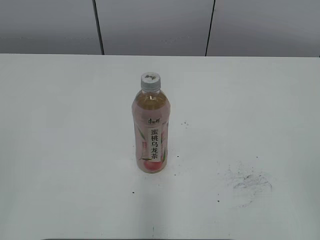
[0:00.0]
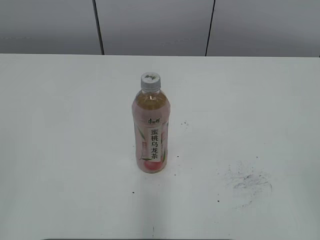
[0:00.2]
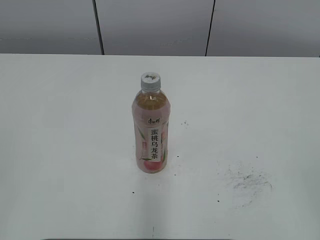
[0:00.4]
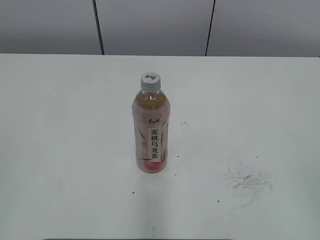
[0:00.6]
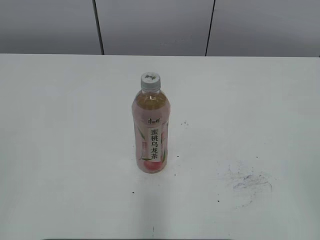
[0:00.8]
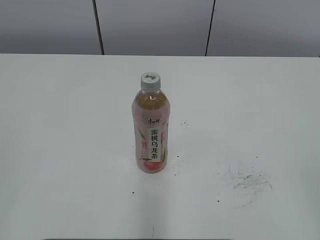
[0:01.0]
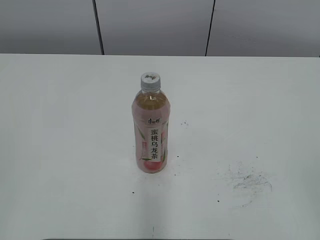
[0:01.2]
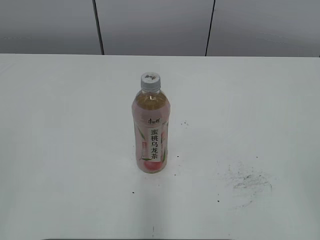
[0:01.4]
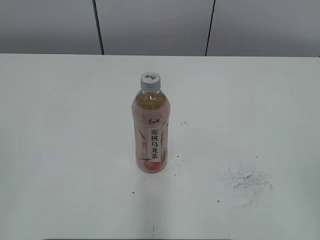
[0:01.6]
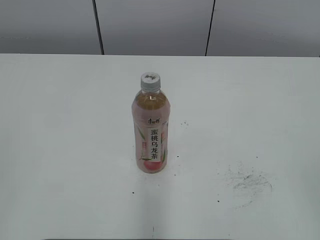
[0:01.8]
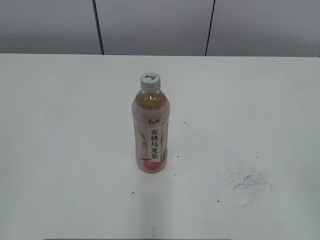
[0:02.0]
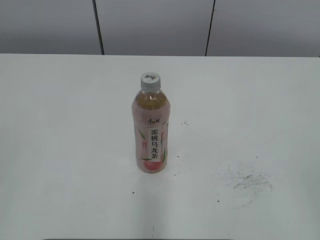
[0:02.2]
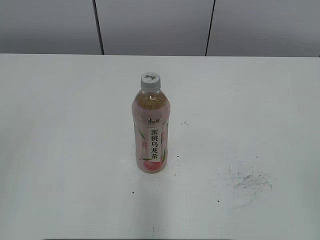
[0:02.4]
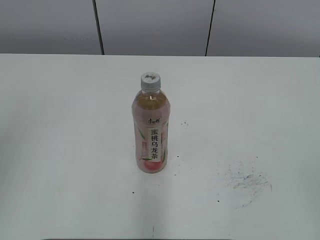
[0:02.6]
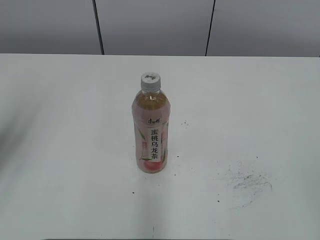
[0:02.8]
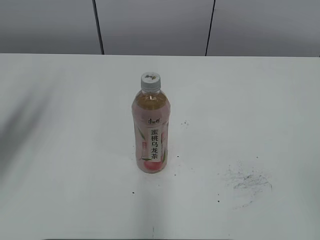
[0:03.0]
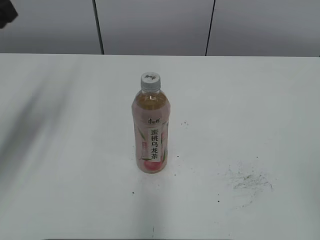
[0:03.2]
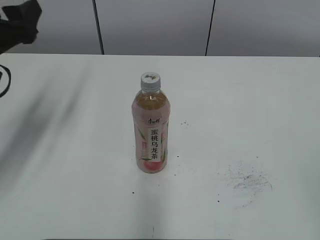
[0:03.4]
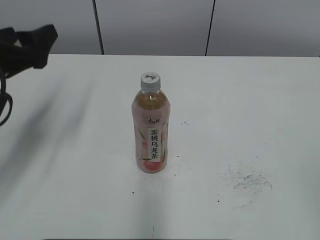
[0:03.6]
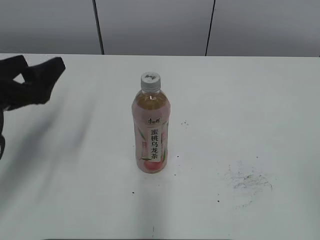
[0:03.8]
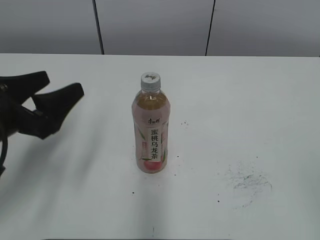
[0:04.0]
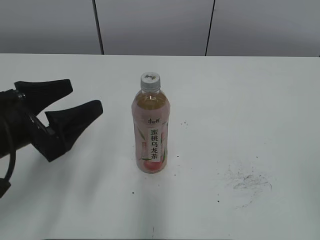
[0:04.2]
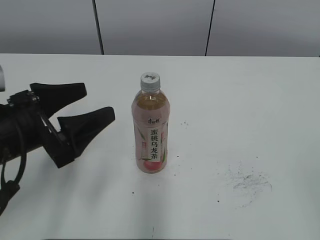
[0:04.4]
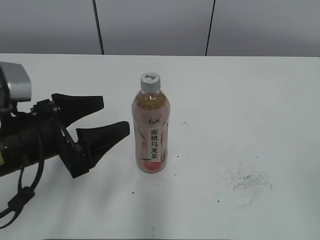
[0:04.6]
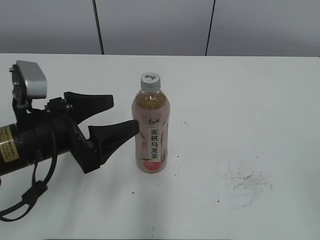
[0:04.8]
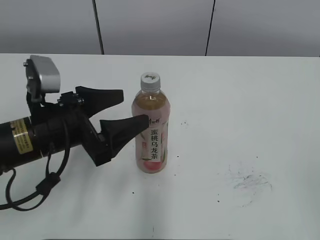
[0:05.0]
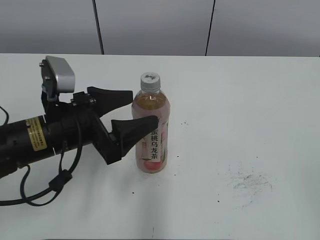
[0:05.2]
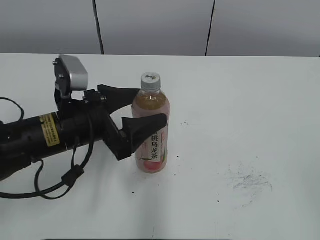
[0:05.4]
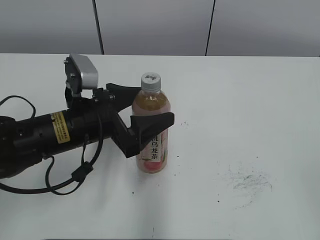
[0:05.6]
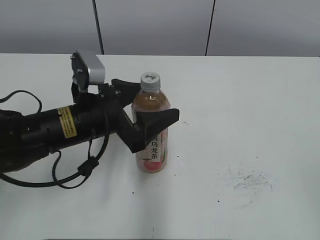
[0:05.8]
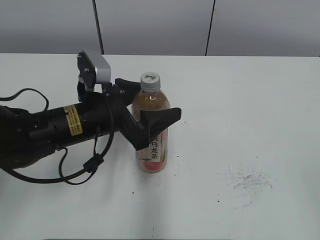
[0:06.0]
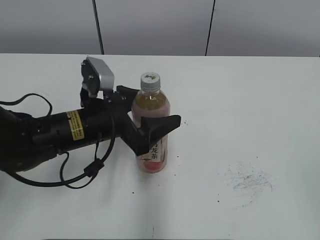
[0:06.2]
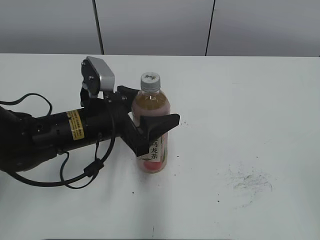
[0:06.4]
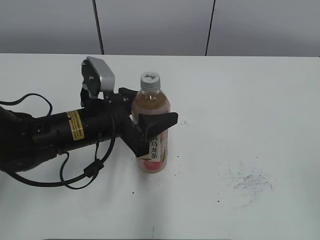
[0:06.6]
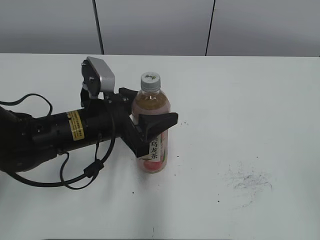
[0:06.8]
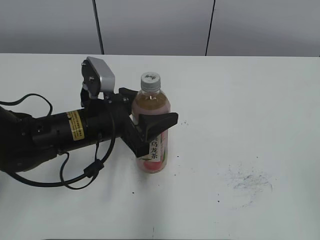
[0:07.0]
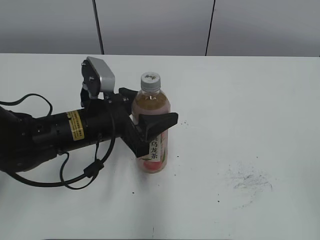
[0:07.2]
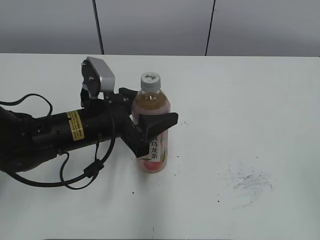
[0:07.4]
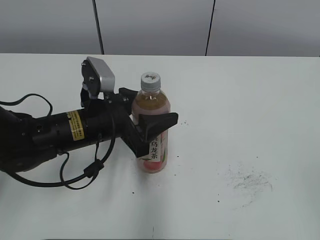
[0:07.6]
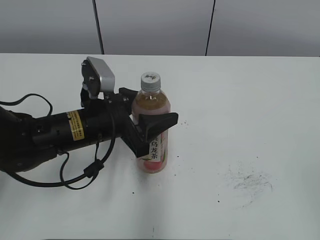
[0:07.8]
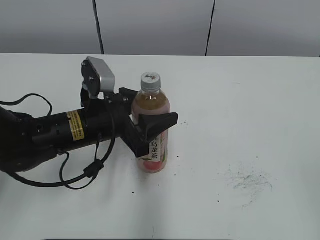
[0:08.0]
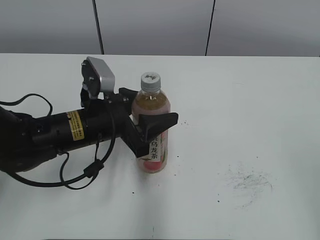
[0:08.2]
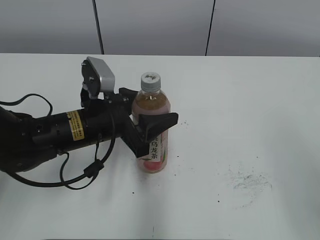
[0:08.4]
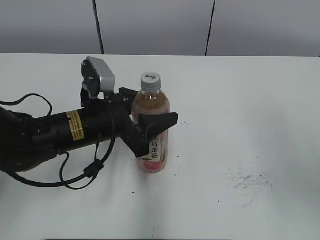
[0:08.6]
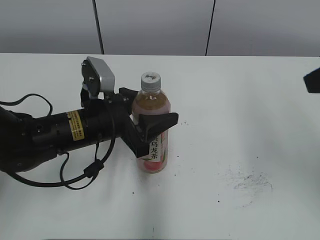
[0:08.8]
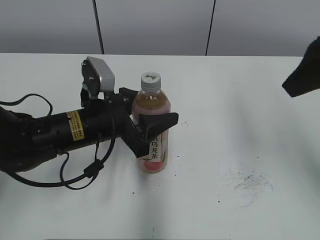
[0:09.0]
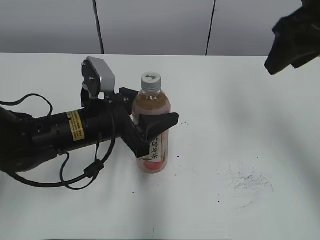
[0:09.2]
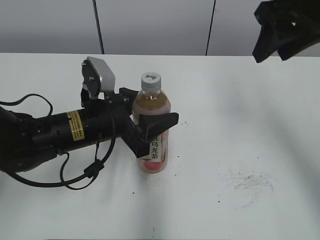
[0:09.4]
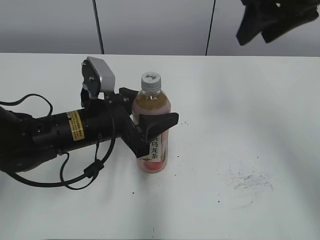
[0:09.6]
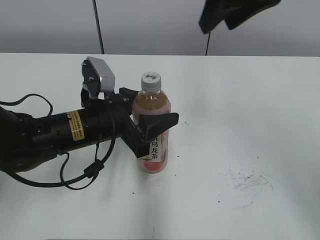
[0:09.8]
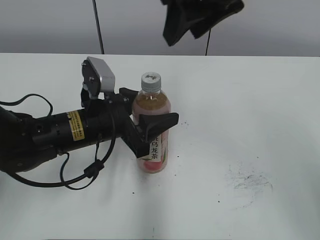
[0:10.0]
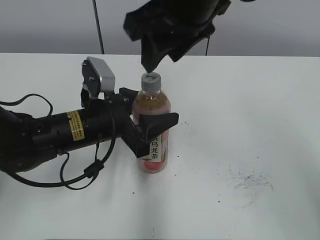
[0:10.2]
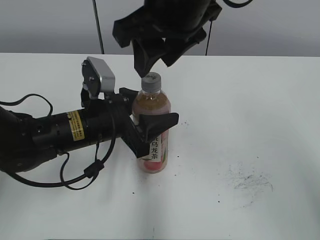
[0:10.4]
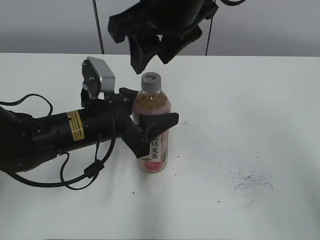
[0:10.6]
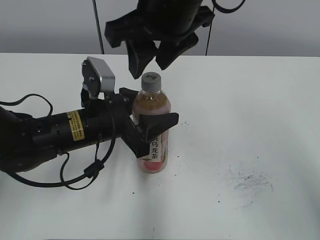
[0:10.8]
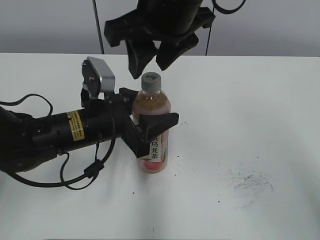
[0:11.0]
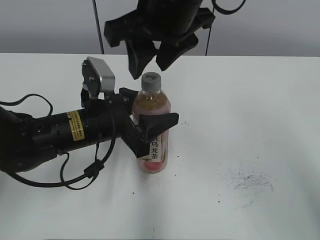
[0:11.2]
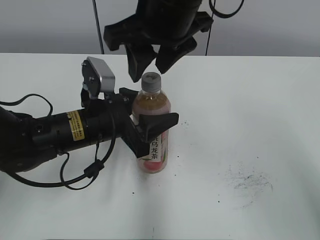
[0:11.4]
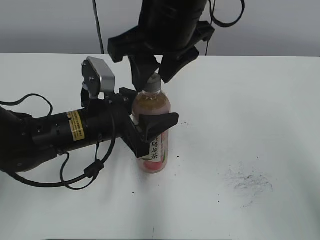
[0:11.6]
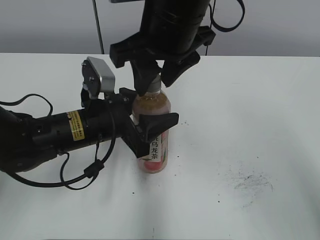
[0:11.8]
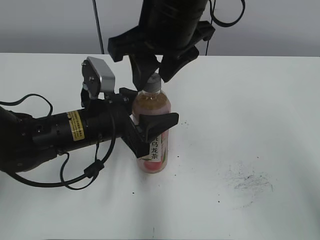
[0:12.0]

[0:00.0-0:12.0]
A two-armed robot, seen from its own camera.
Step, 0:00.0 to 0:06.4: Grab the Peach Oolong Tea with the left hand.
0:01.6 to 0:03.0: The left gripper shifts approximately 25 cm forward.
0:03.0 to 0:04.4: The left gripper goes roughly 15 cm downward and to the right, and opens.
0:04.4 to 0:06.0: The left gripper travels to the right and forward by roughly 10 cm.
0:06.0 to 0:07.6: The left gripper closes its fingers.
0:07.6 to 0:09.0: The right gripper shifts about 25 cm forward, and closes its fingers.
0:09.0 to 0:10.4: The right gripper goes roughly 20 cm to the left.
0:10.4 to 0:12.0: The grippers stay close to where they were, moving slightly.

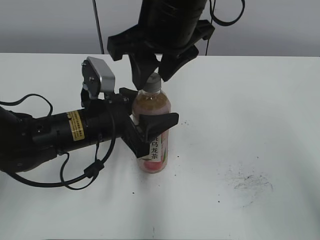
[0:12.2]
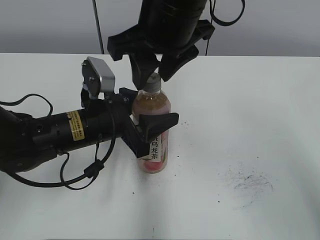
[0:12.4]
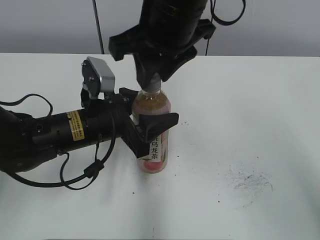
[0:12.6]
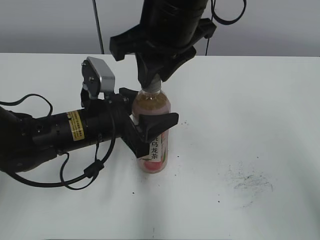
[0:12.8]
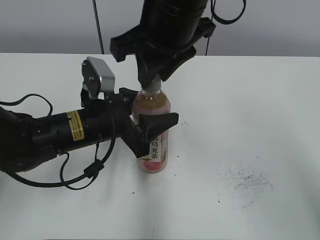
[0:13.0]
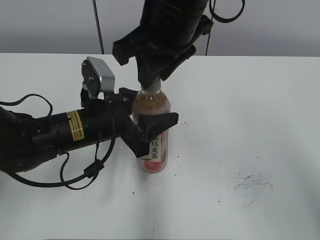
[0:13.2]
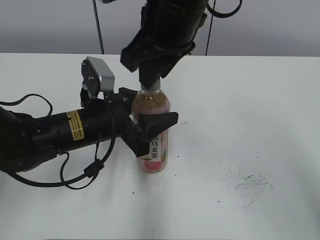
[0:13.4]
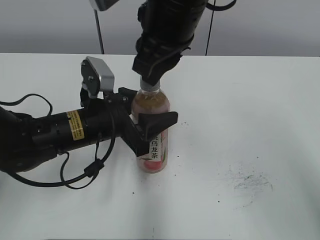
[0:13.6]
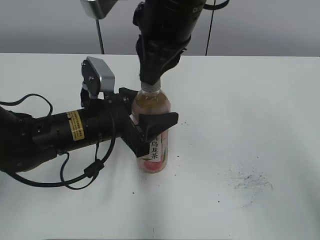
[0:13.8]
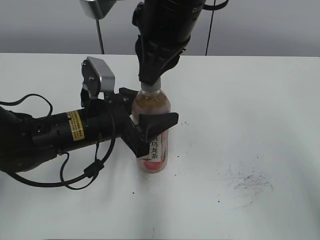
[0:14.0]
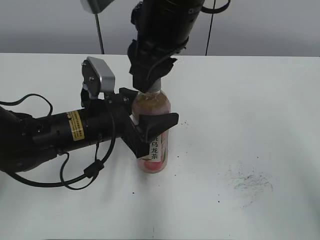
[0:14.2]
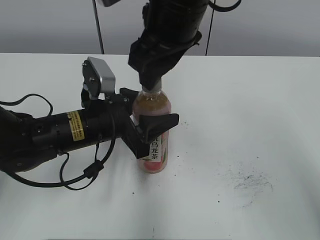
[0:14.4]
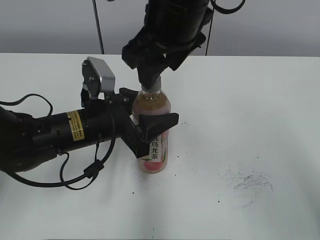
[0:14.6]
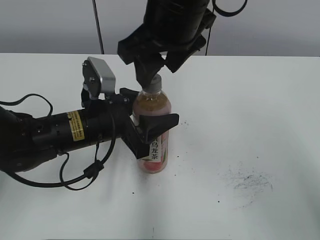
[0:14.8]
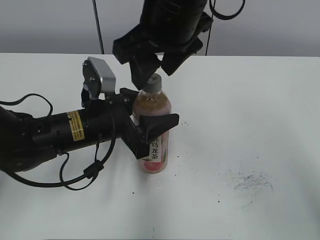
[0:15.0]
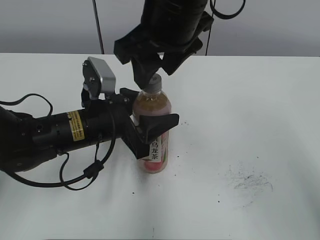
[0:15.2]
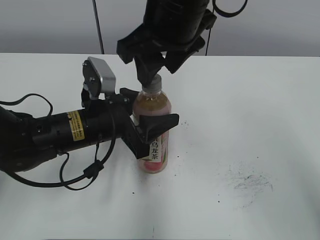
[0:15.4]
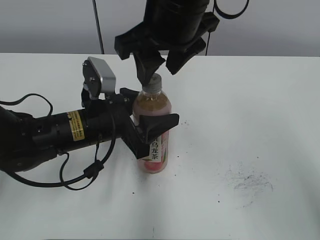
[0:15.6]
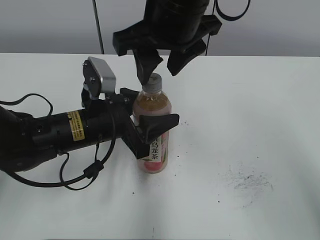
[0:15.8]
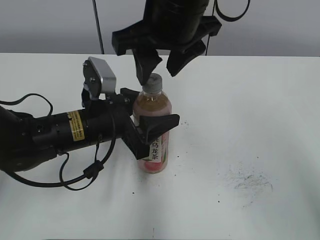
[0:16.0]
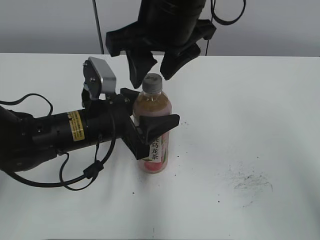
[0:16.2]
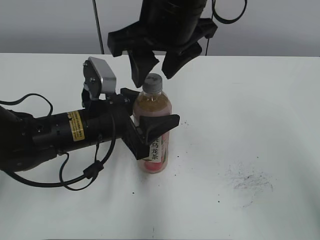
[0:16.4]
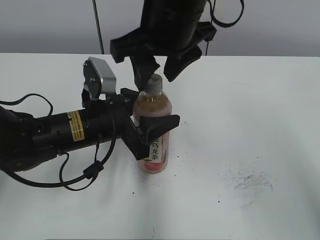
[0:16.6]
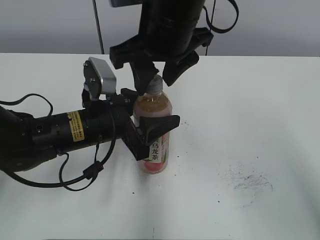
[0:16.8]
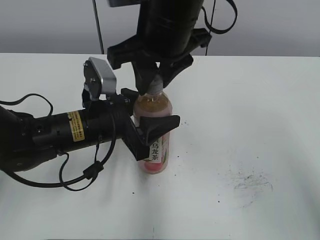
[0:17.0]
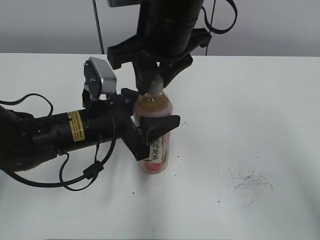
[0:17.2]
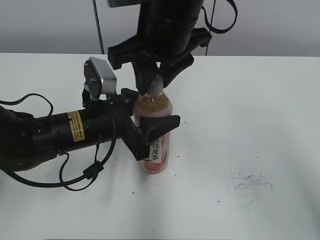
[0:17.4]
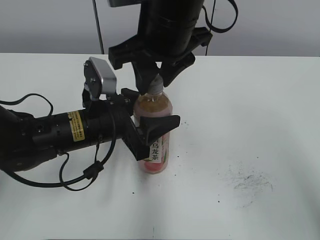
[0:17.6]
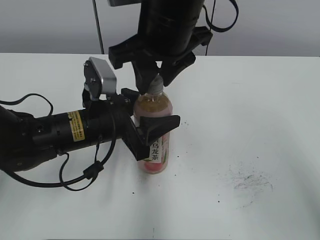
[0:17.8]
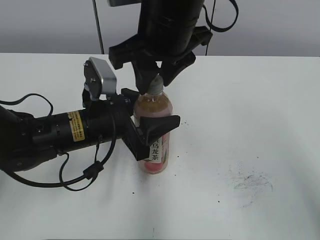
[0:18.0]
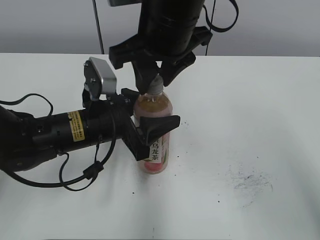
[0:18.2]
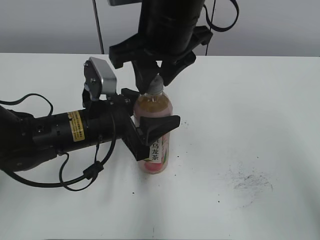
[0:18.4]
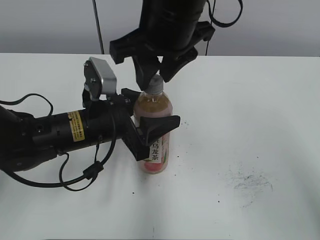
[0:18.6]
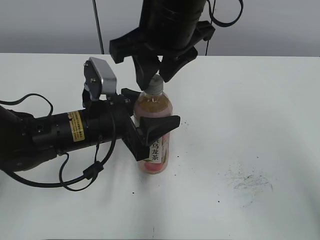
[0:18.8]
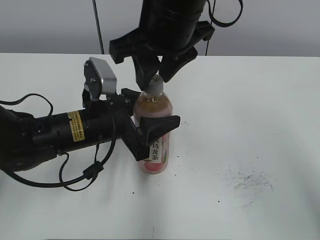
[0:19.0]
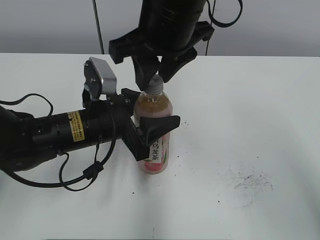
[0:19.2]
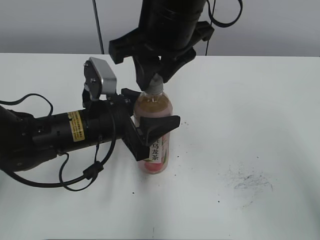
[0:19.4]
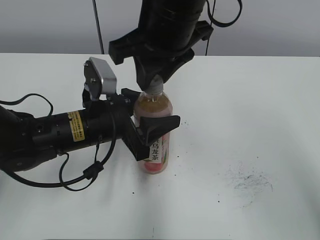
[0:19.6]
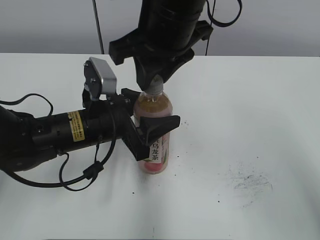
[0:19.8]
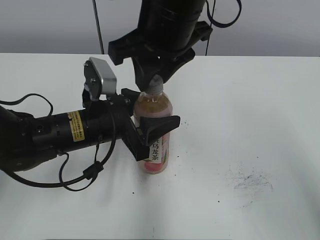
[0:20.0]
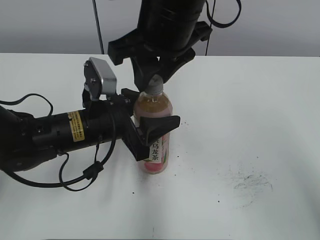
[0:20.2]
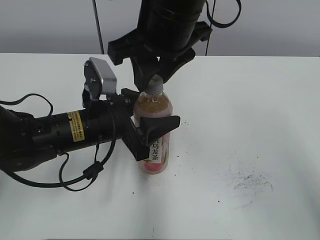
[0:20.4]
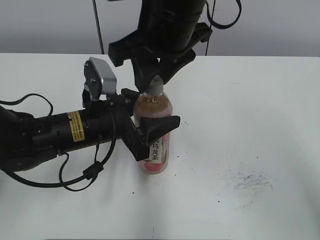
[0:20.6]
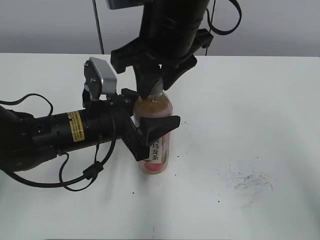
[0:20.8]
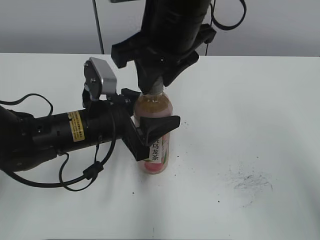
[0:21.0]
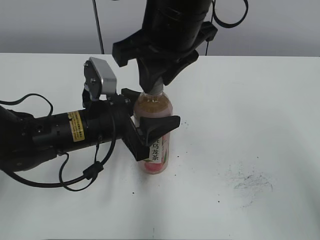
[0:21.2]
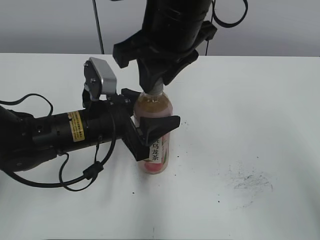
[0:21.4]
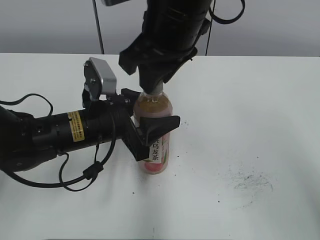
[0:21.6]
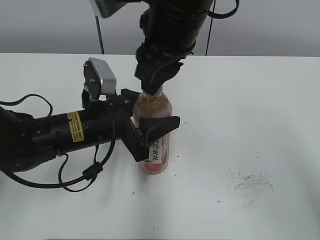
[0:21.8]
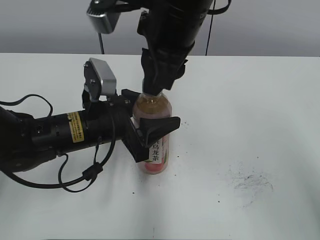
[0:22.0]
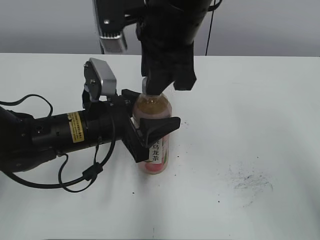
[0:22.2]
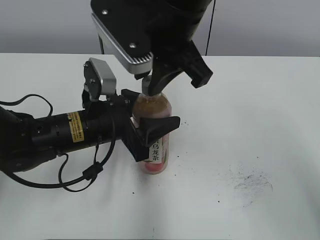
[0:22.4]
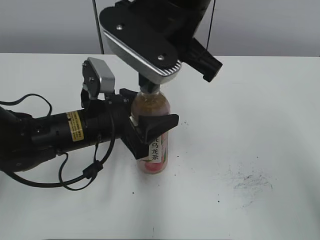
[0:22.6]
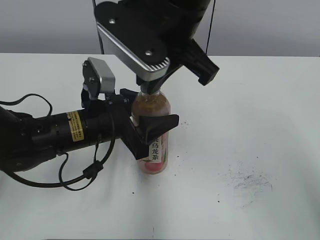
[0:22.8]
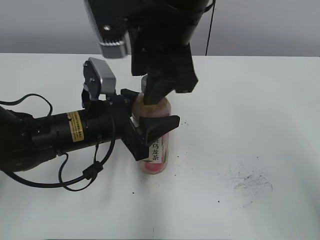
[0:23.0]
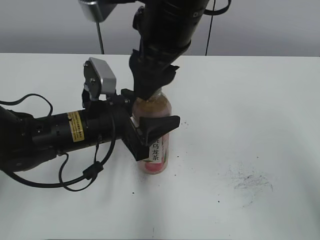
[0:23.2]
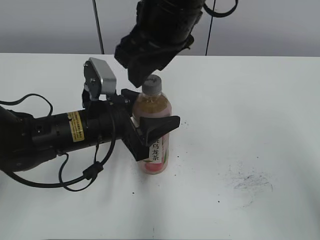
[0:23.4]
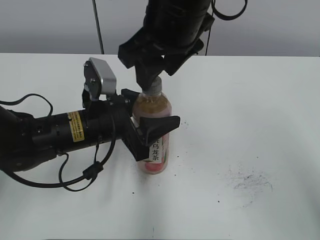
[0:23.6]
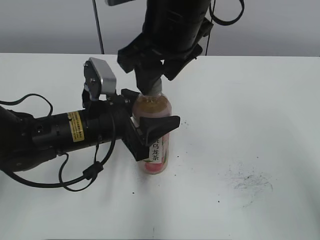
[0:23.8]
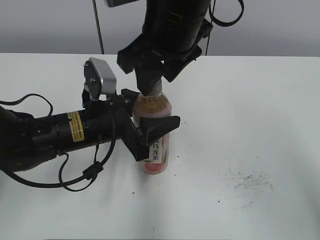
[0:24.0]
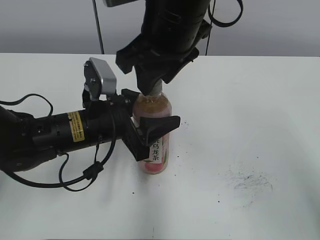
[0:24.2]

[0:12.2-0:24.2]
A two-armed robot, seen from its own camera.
0:12.2 to 0:13.8: The right gripper closes its fingers.
0:13.8 to 0:15.2: The right gripper opens up.
0:15.2 to 0:16.6: The grippers move only a little.
0:16.6 to 0:21.2: Both grippers stay about where they are.
0:22.6 to 0:24.2: The right gripper opens and closes again.
